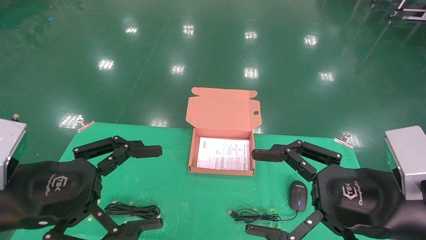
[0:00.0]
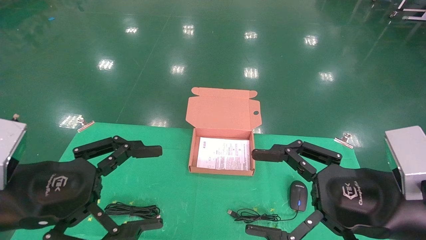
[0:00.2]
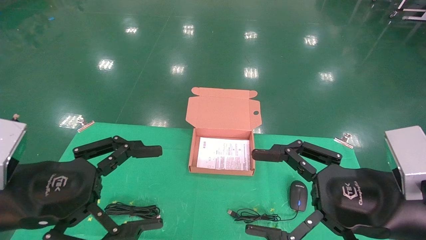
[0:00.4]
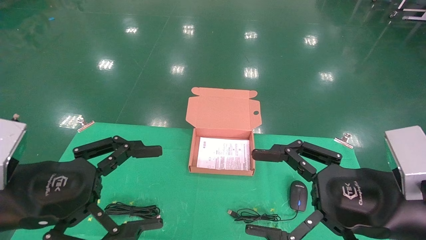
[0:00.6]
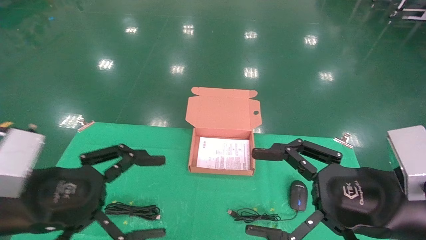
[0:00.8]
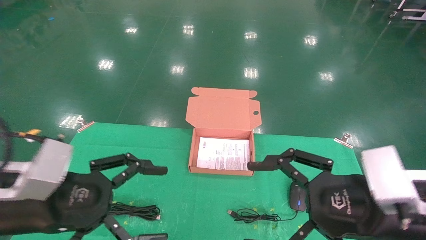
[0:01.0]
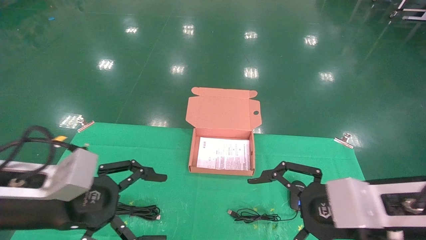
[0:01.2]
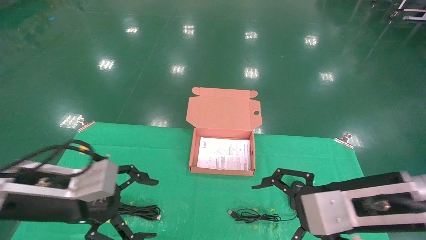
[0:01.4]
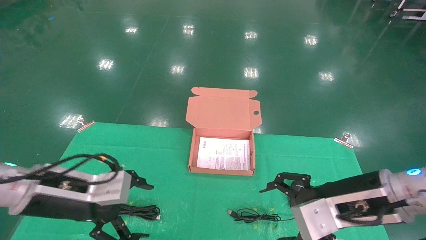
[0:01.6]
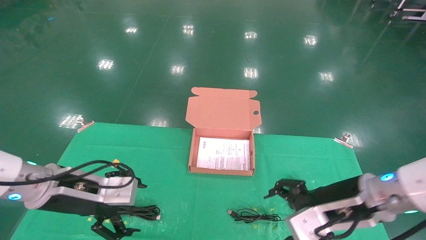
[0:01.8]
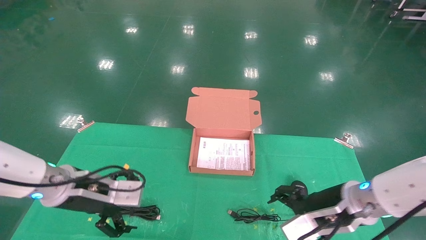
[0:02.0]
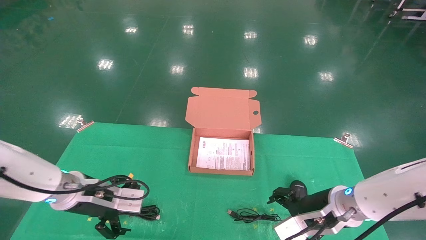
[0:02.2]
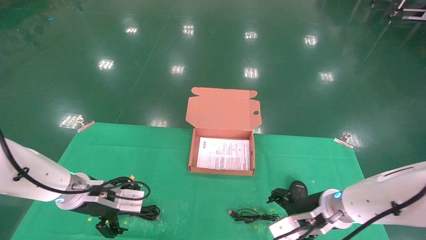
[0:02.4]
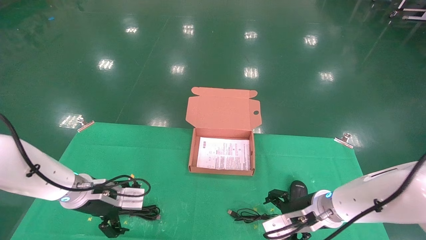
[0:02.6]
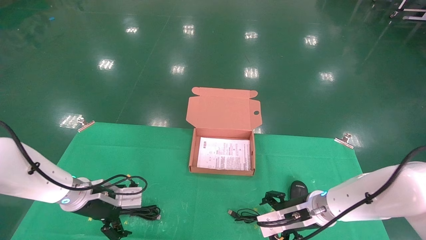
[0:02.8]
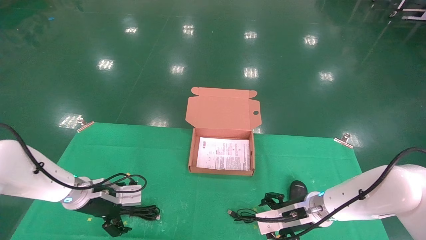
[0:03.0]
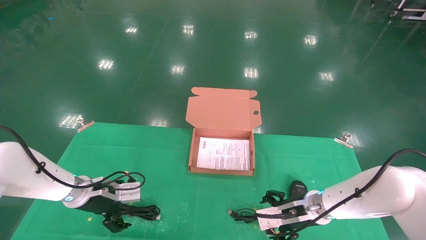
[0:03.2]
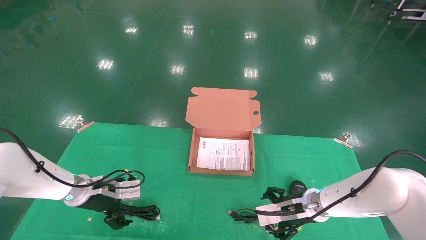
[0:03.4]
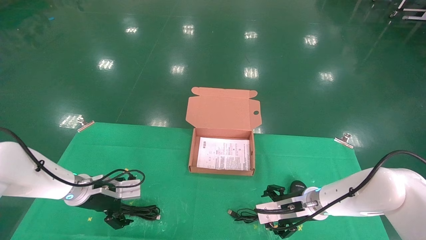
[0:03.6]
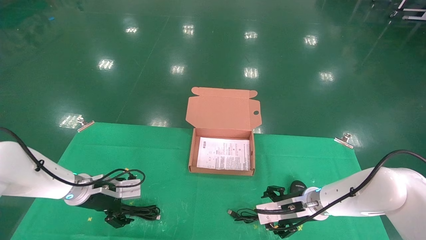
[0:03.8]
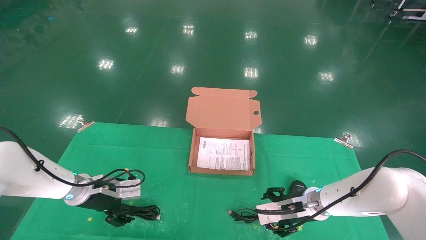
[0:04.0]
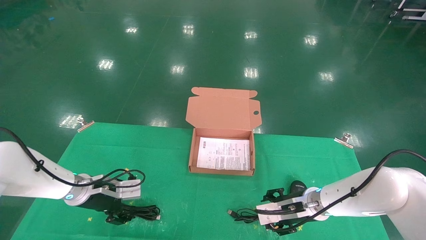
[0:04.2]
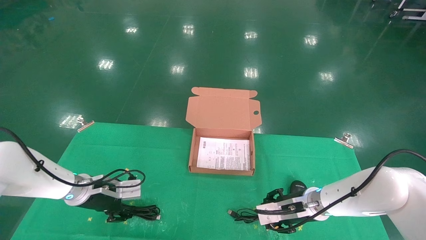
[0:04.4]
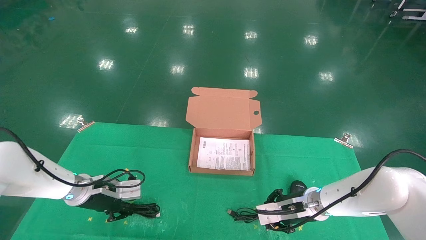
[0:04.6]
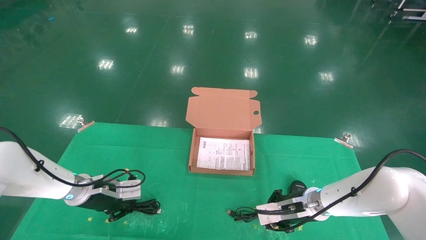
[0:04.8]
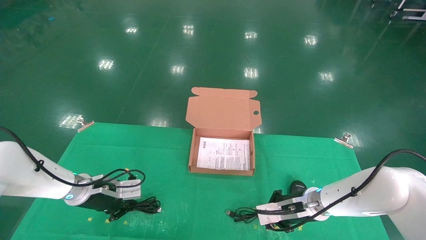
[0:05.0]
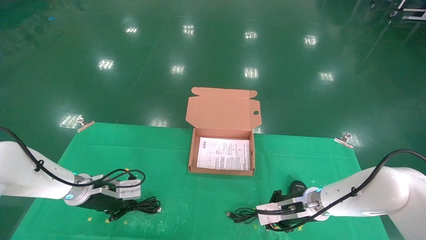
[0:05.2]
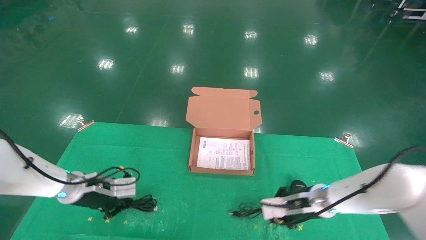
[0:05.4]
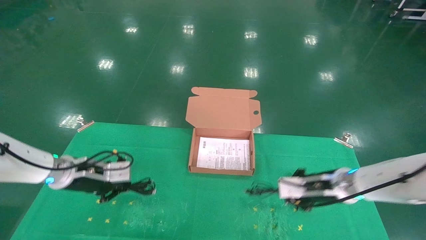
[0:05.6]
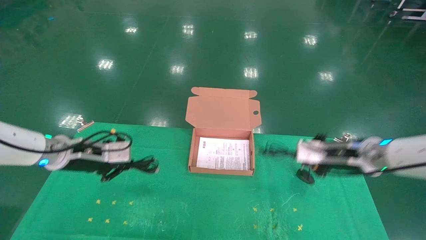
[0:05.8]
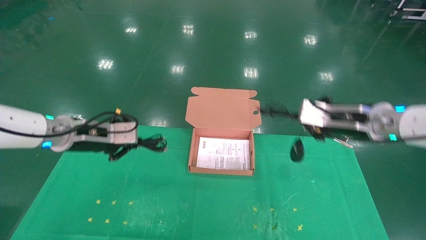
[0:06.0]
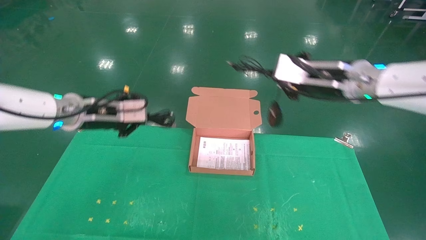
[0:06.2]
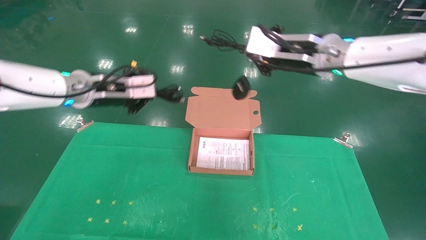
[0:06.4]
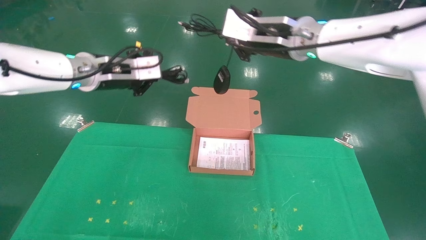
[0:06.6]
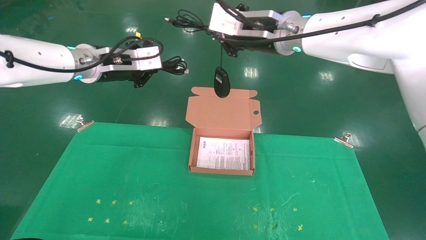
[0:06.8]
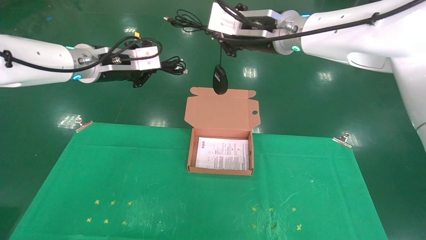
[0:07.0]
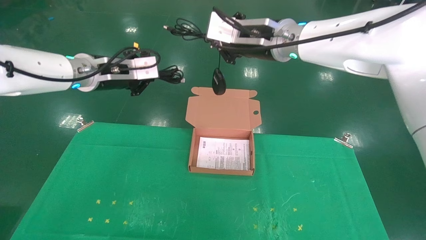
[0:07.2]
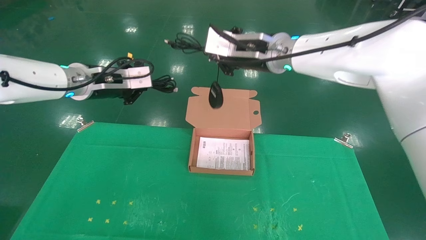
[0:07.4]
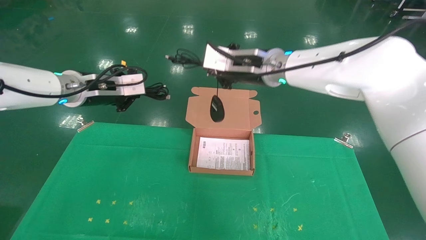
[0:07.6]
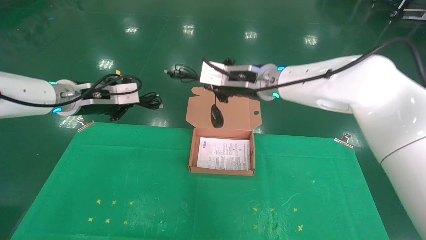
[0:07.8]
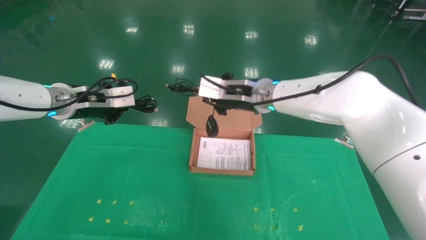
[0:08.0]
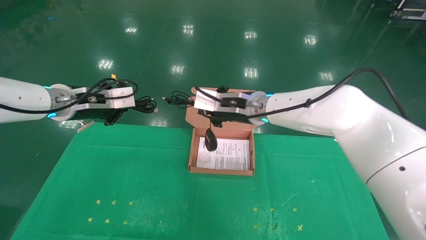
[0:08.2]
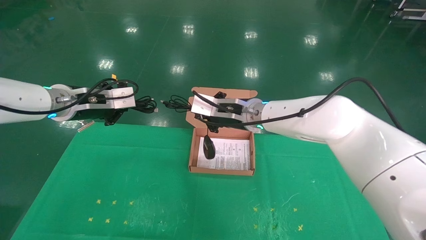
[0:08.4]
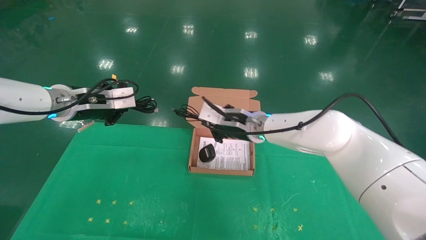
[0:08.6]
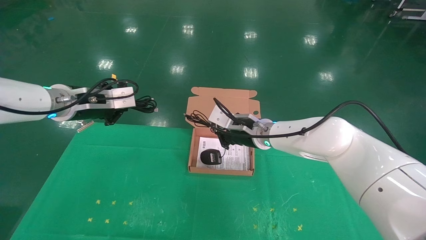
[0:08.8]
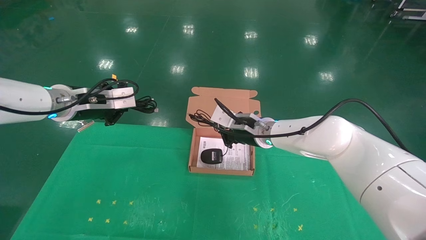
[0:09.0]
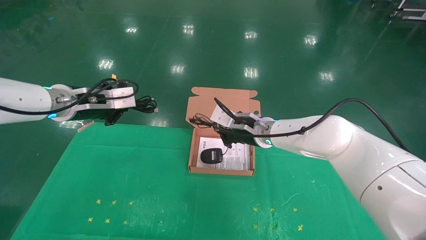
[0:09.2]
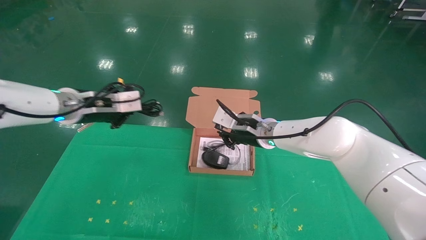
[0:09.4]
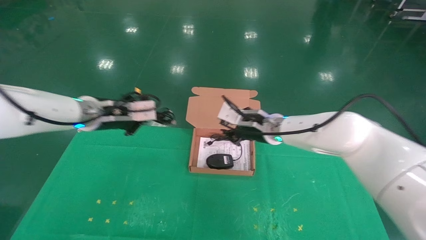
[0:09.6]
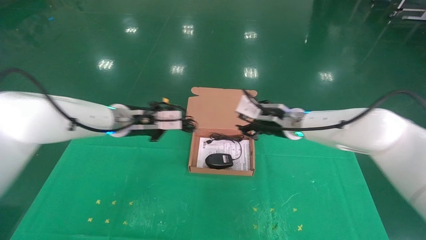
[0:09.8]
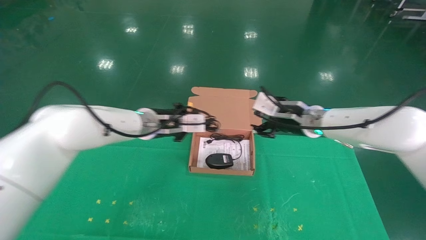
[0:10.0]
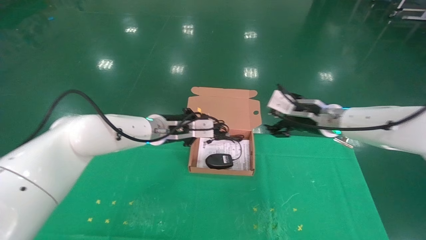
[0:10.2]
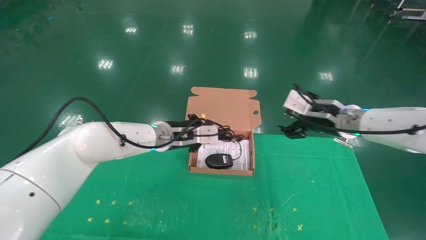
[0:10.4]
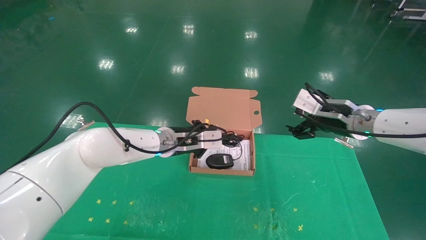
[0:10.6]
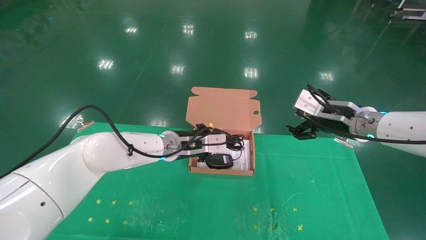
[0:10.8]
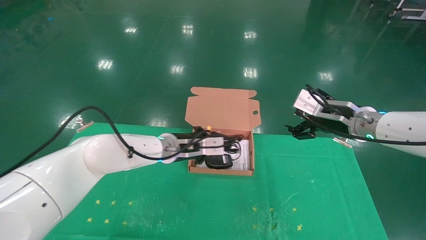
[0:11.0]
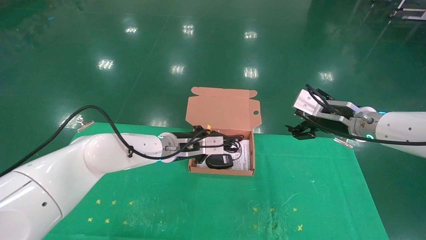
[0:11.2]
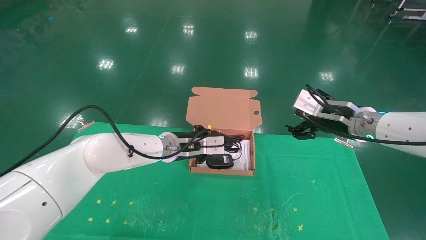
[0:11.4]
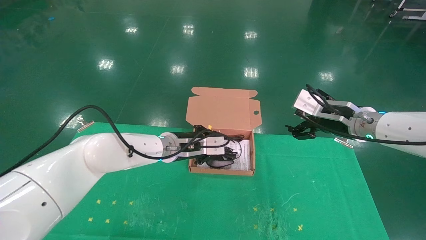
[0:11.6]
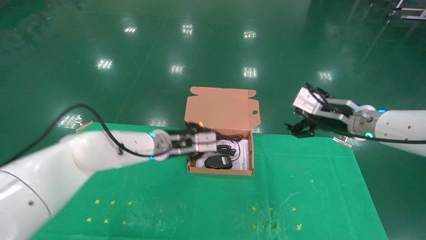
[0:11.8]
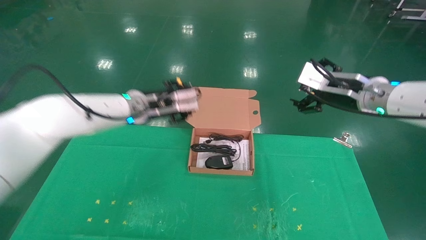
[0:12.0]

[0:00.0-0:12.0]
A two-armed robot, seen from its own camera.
Task of the whole recording: grasp data cable left put into box grasp mouse right put into box.
Step, 0:01.2 to 0:05.2: Grab and pick up both the mouse and power cord from the accessory packaging area at the same time.
Step, 0:05.4 to 0:11.6: Place the mouse and power cord into the box.
0:00.0 to 0:01.6: Both grippers travel together forward, about 10 cm.
0:01.6 to 0:03.0: Both grippers travel together forward and downward, roughly 15 cm.
0:03.0 to 0:04.4: The right gripper closes up. Meanwhile the left gripper closes up.
0:04.4 to 0:06.0: The grippers both shift upward by approximately 20 cm. The right gripper closes its fingers, while the left gripper closes.
0:06.0 to 0:07.6: The right gripper moves to the left and upward, some 20 cm, while the left gripper moves upward, approximately 10 cm.
0:07.6 to 0:09.0: The right gripper travels downward by some 15 cm.
0:09.0 to 0:10.4: The left gripper goes about 20 cm to the right and downward. Meanwhile the right gripper goes about 15 cm to the right, and opens its fingers.
0:10.4 to 0:12.0: The right gripper moves approximately 5 cm. The left gripper is displaced upward by some 5 cm, and opens.

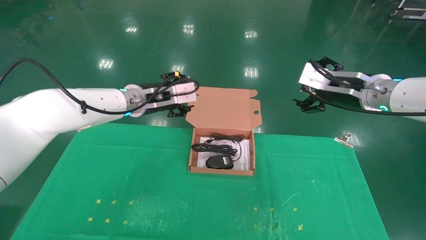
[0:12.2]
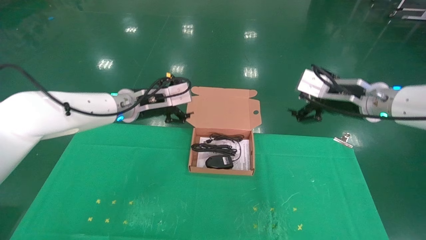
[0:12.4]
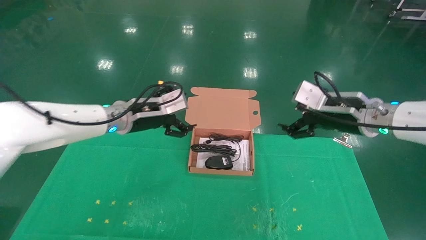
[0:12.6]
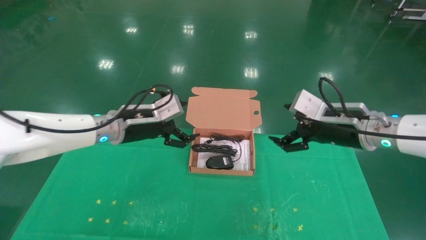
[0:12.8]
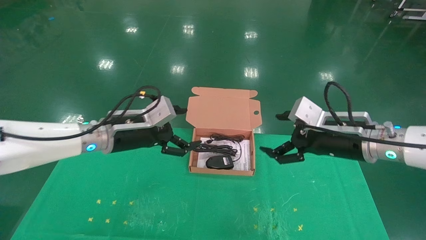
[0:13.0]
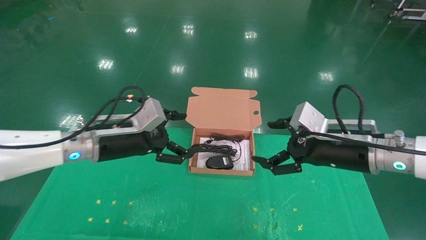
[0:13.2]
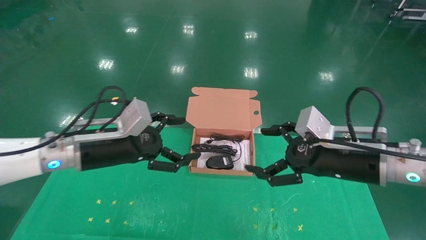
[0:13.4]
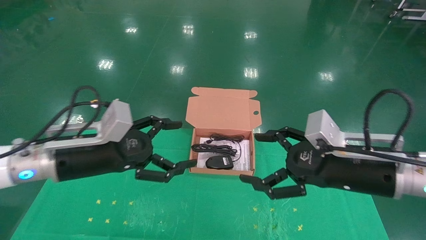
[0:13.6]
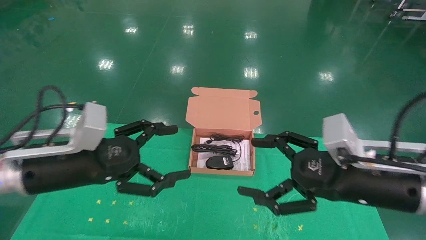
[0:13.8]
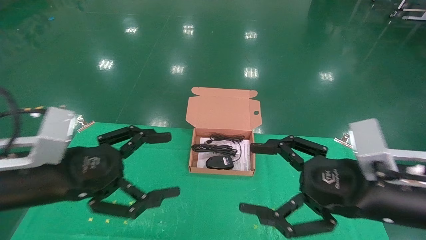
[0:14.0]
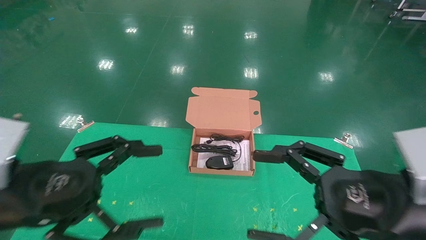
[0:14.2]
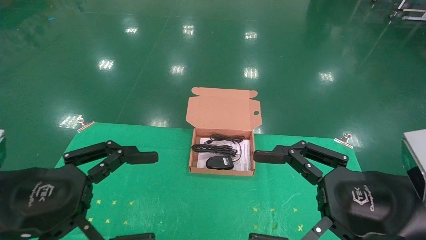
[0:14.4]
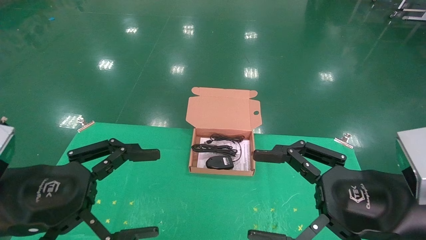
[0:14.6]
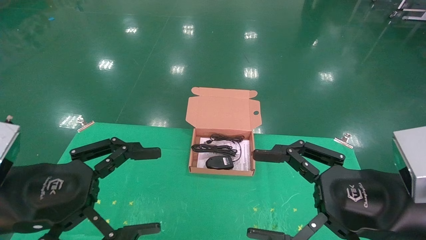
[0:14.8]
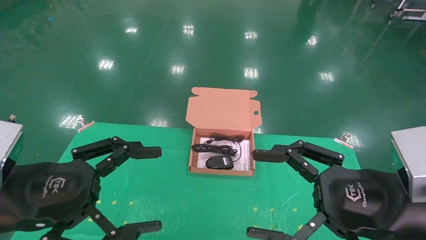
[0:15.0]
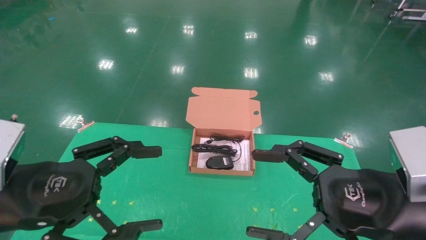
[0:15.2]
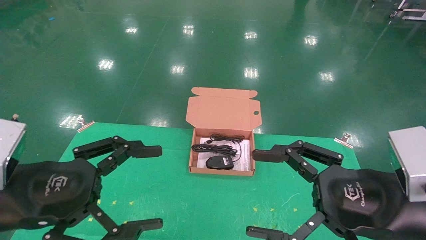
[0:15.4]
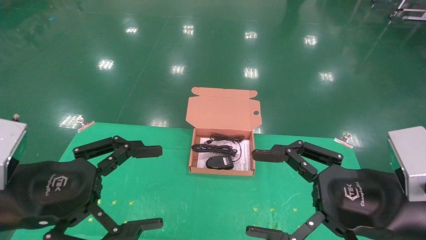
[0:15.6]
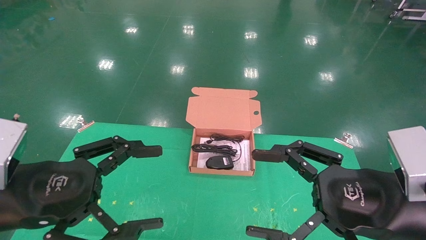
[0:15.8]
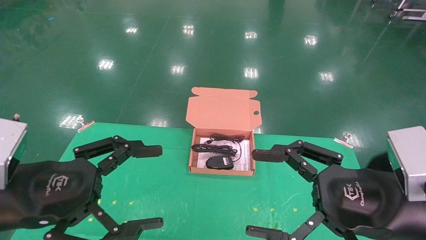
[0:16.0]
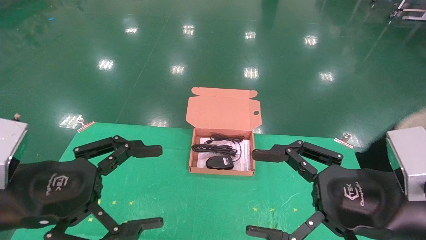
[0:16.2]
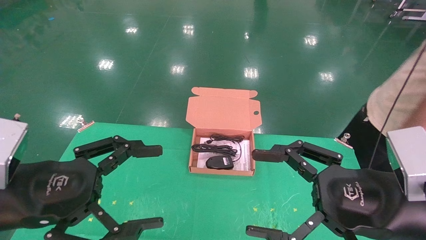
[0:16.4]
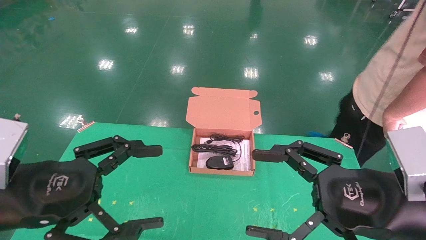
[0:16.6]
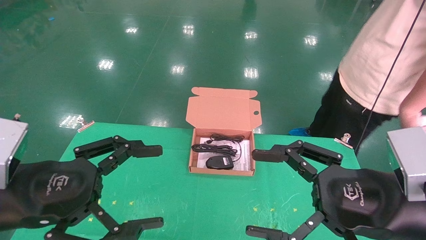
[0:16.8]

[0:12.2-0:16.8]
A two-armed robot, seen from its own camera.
Task of the whole recording: grasp data cable left put into box grasp mouse right put into box.
0:12.2 to 0:13.8: The left gripper is displaced backward and to the left by about 20 cm, and opens. Meanwhile the right gripper goes about 20 cm backward and downward.
0:13.8 to 0:15.2: Both grippers move backward, some 5 cm.
0:15.2 to 0:16.8: The two grippers keep their place.
